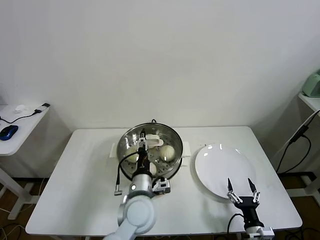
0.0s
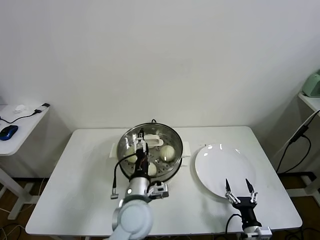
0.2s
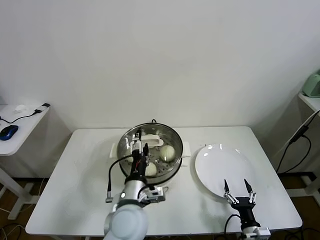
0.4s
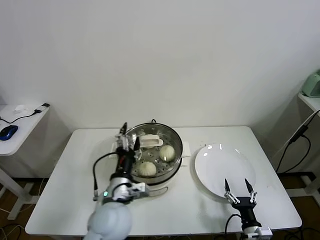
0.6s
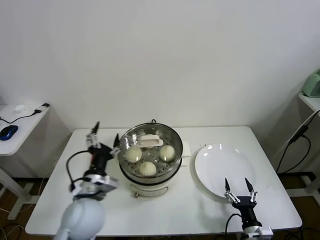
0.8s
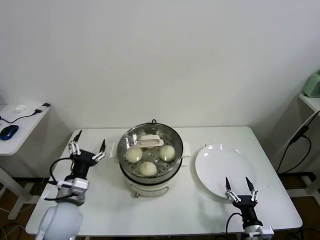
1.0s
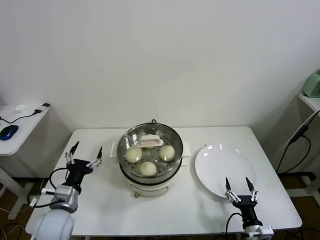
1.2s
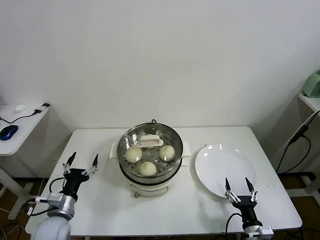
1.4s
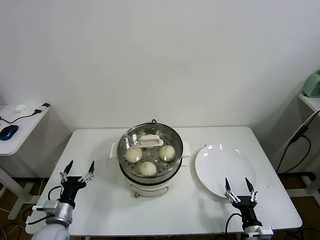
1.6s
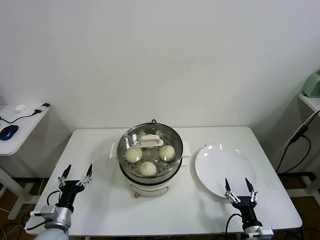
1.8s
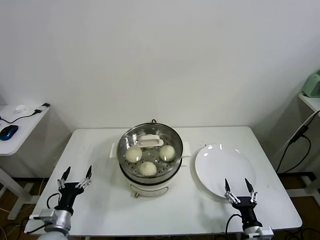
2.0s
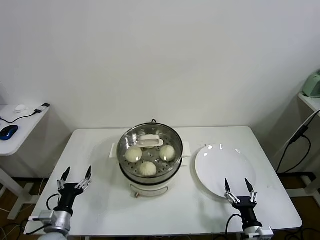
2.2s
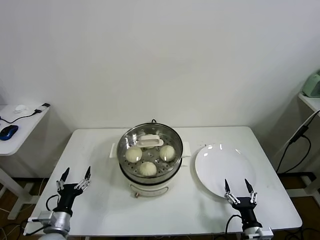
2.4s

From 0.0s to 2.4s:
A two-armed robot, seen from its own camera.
Task of the whole recording: take steamed baozi put them in steamer.
From 0.0s to 1.2s: The left gripper moves to the left, approximately 25 cm, and opens its fingers.
From 1.2s to 2.4s: The left gripper heads downward and to the left, covering approximately 15 cm.

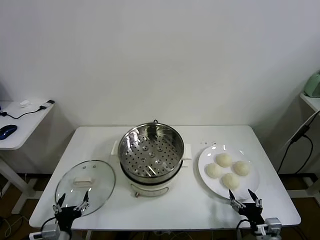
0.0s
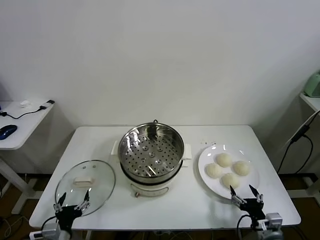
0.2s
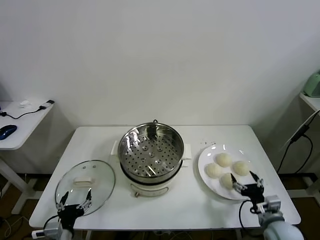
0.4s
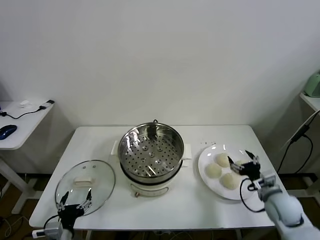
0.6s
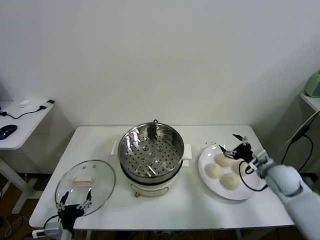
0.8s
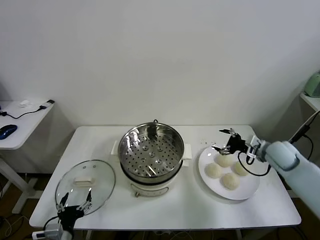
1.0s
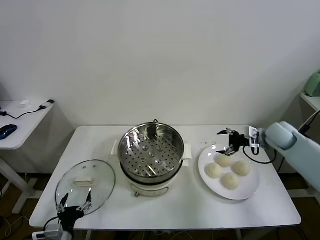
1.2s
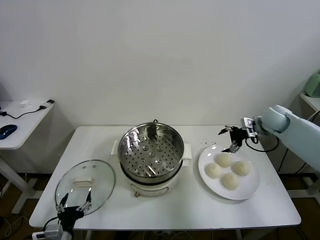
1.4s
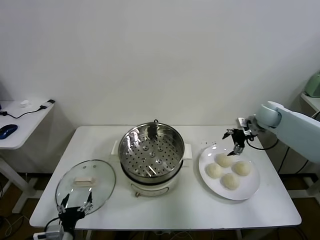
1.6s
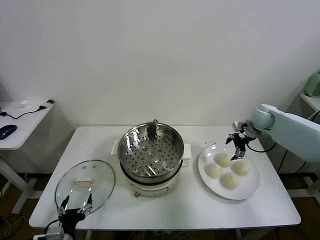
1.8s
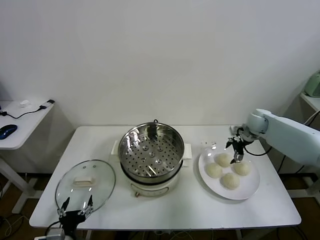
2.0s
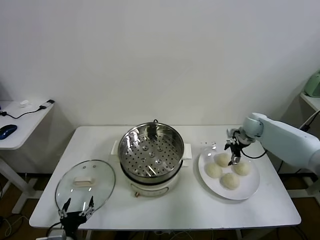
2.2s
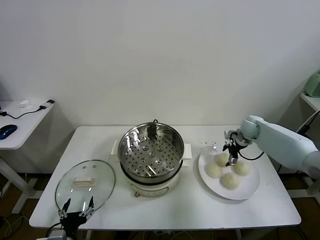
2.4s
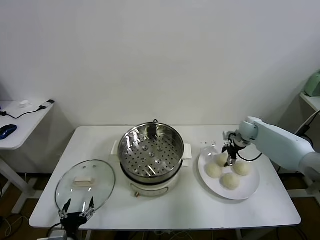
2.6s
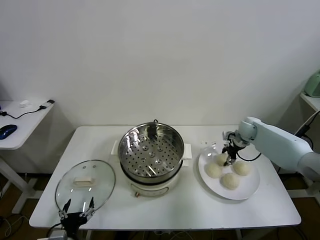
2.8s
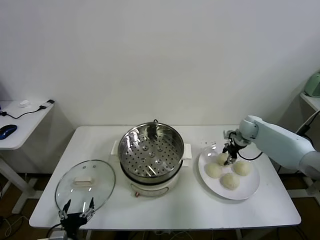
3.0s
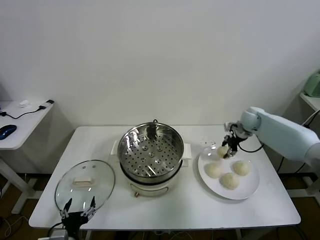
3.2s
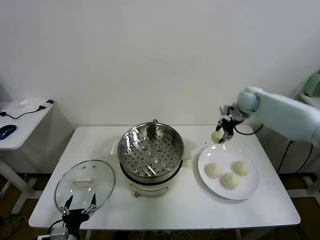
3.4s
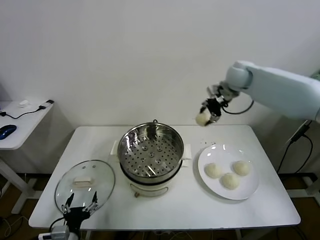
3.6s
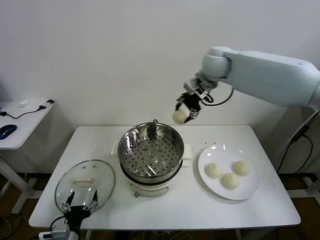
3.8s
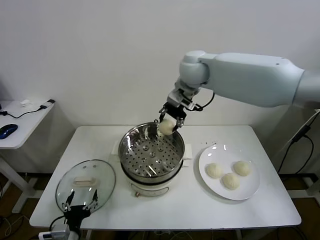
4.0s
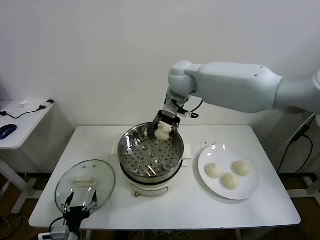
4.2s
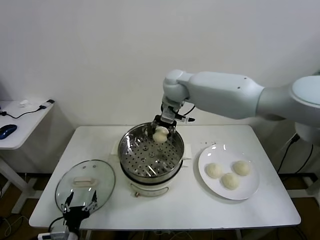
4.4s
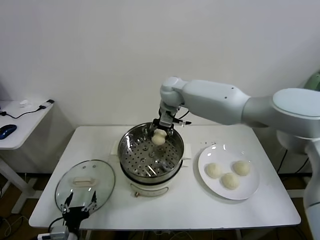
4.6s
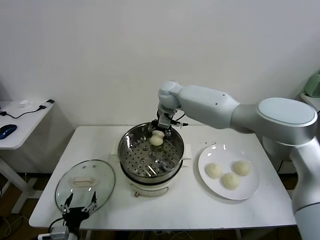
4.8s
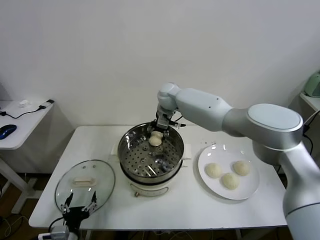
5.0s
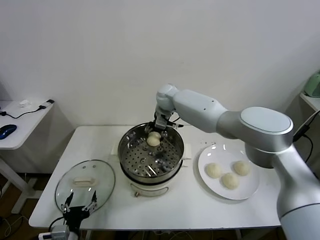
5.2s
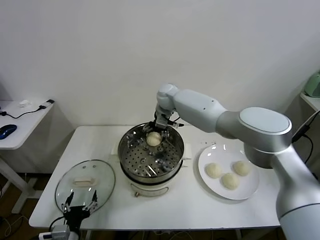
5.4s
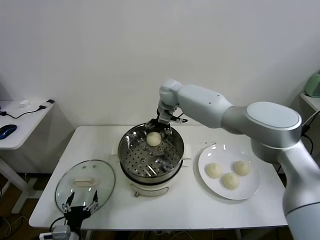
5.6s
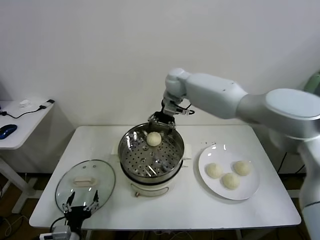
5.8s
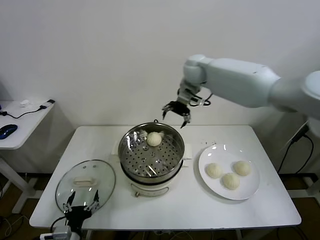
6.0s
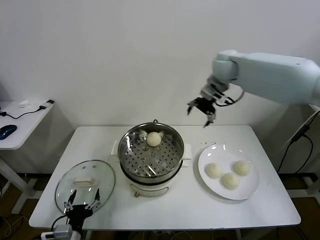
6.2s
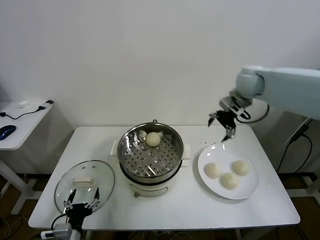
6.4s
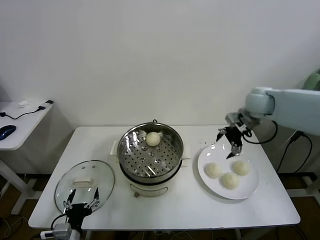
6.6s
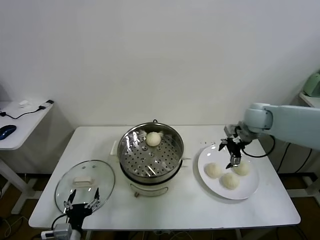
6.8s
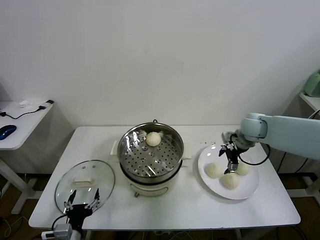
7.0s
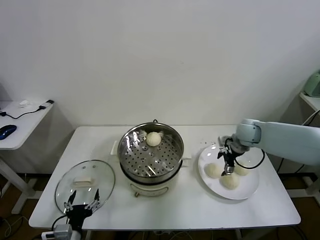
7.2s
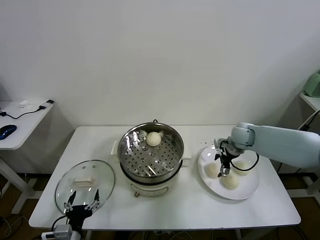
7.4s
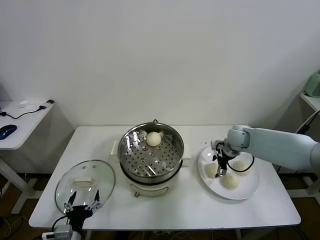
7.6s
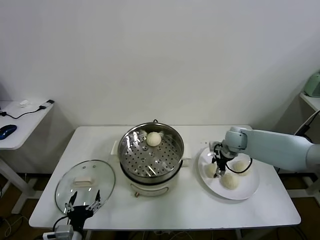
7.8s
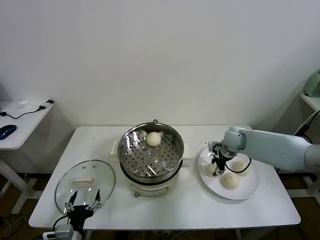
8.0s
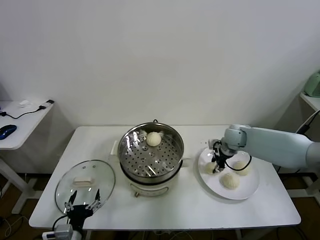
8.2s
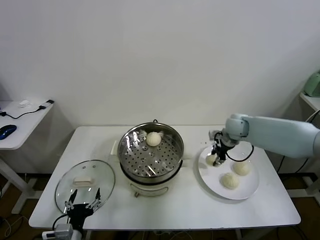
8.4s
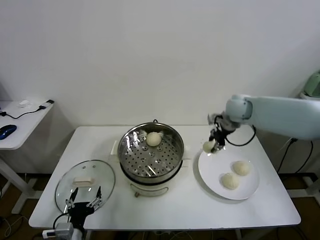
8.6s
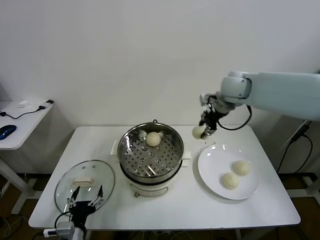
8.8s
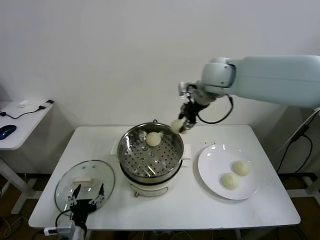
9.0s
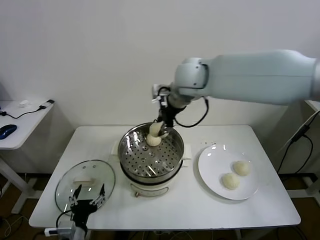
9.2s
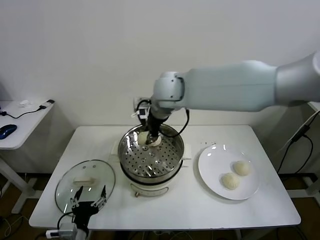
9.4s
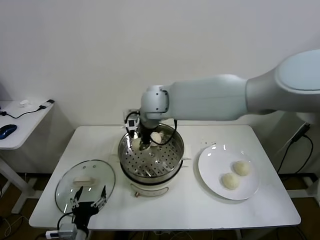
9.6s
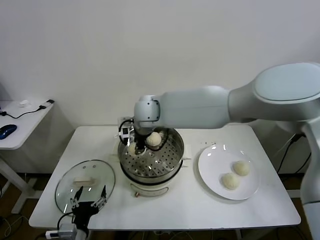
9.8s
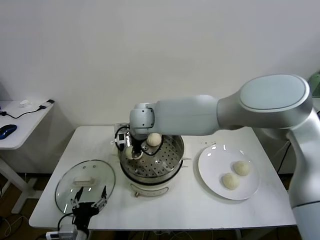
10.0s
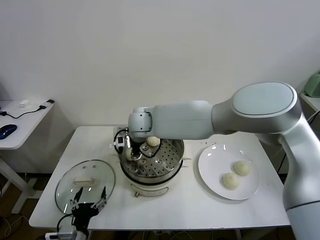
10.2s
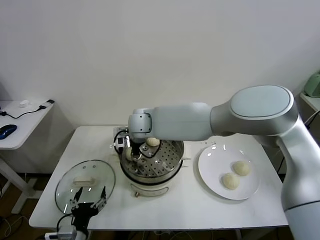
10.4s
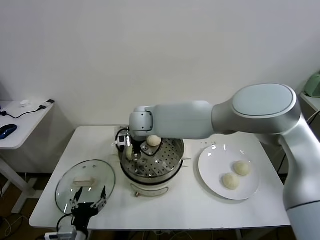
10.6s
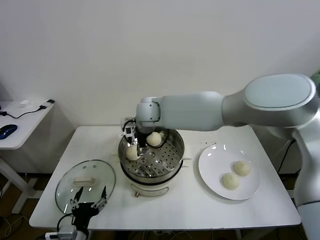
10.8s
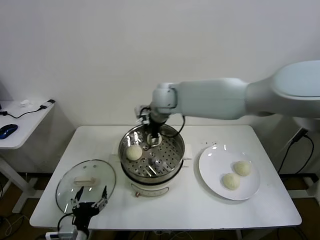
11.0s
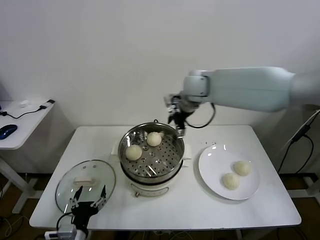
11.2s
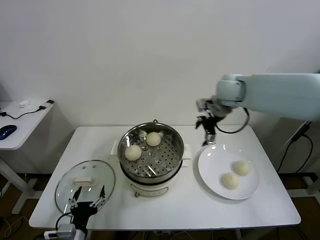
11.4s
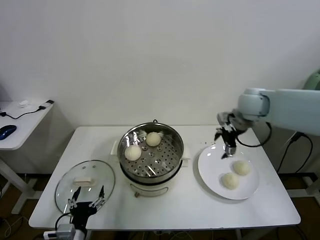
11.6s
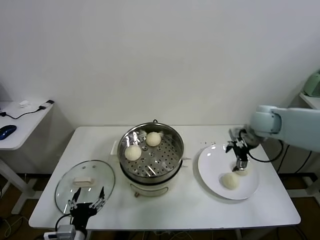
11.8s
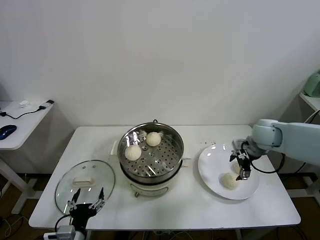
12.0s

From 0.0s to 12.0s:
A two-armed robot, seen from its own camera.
Task of the whole recording: take steamed baozi put them in steamer.
Step, from 0.0s to 2.8s: Grasp the baozi in the plate with right gripper.
Step, from 3.0s to 5.4s: Place the baozi on the steamer with right gripper.
Step, from 5.6s to 7.8s: Grasp the baozi in the plate with right gripper.
Step, from 8.2s to 10.6s: Place the baozi on the steamer with right gripper.
From 1.6s to 3.0s: The right gripper shifts approximately 5 cm downward, and closes.
From 3.0s to 4.4s: The right gripper is displaced to the left and upward by approximately 35 cm.
From 4.4s to 6.0s: The right gripper is displaced to the right and upward by some 15 cm, and opens.
From 6.0s to 7.6s: The right gripper goes approximately 30 cm downward and to the right.
From 7.6s to 9.0s: The right gripper travels upward and to the left by about 35 cm, and closes up.
From 9.0s to 10.4s: The right gripper goes roughly 25 cm to the left and downward.
From 10.4s to 12.0s: The right gripper is displaced to the right by about 40 cm, and opens up.

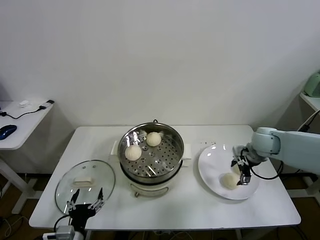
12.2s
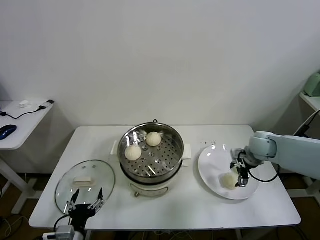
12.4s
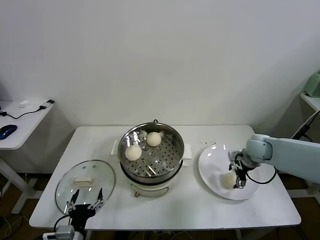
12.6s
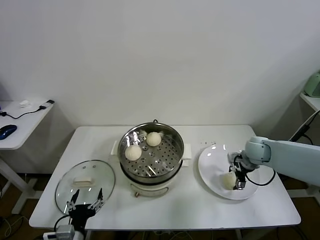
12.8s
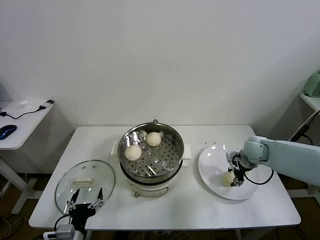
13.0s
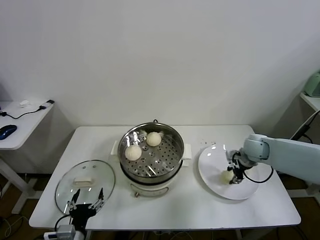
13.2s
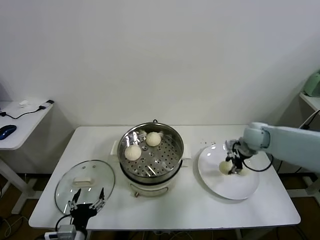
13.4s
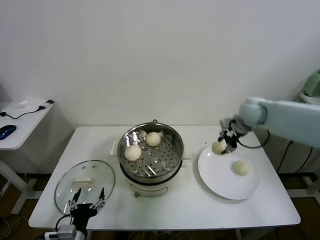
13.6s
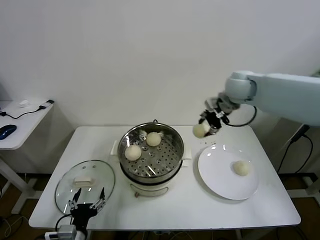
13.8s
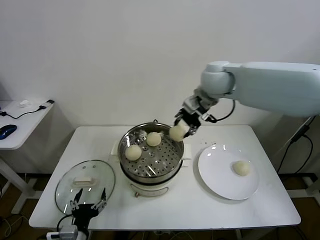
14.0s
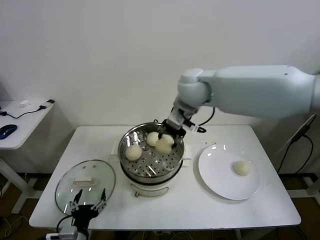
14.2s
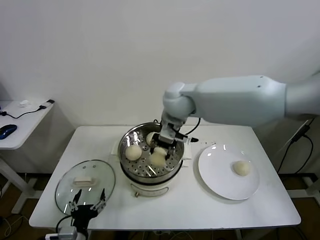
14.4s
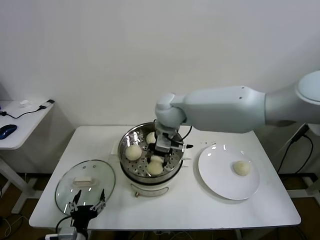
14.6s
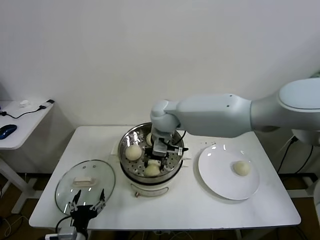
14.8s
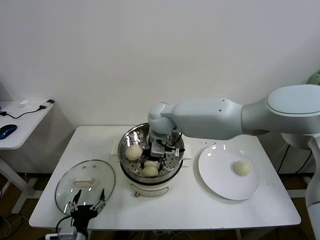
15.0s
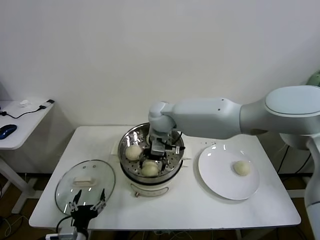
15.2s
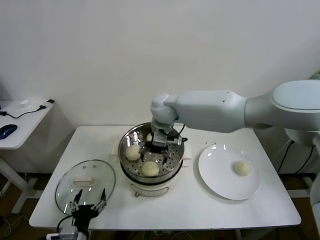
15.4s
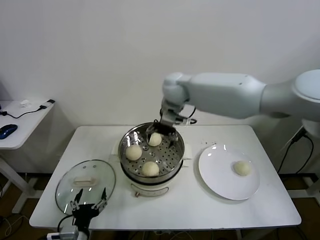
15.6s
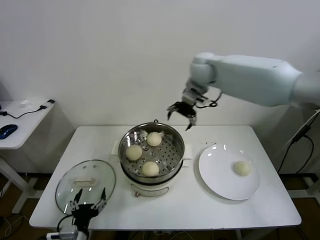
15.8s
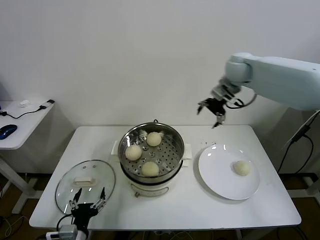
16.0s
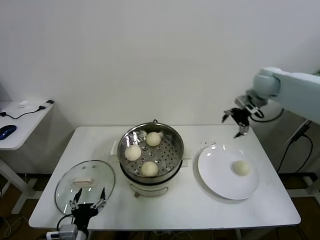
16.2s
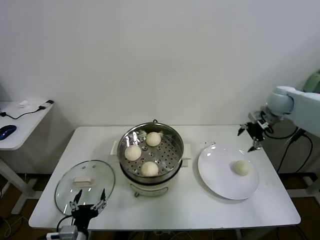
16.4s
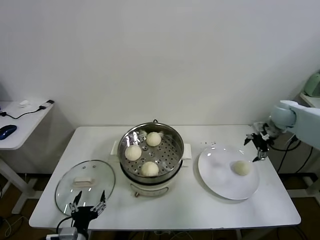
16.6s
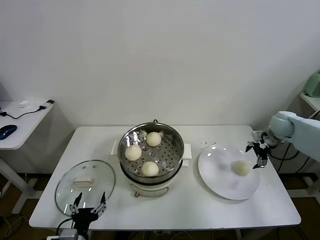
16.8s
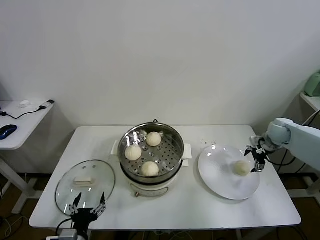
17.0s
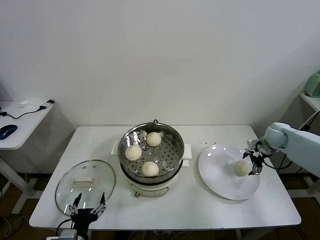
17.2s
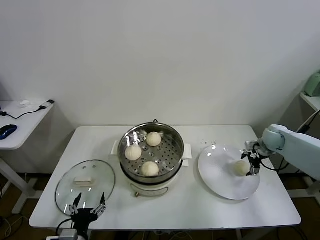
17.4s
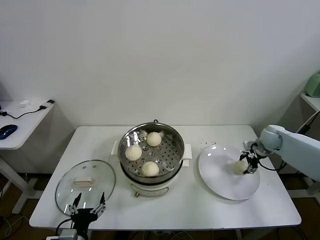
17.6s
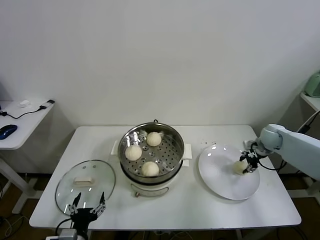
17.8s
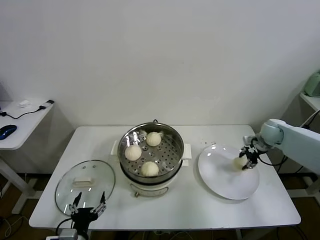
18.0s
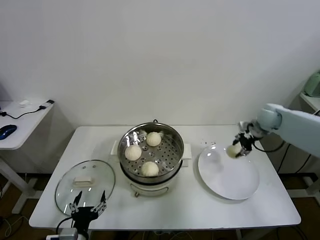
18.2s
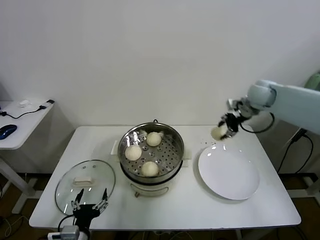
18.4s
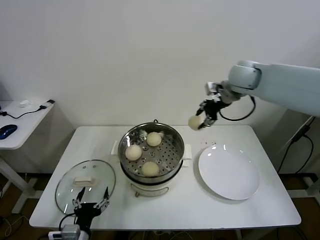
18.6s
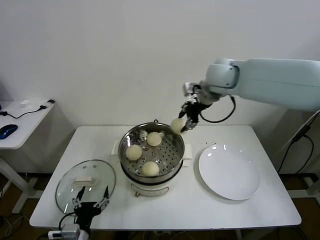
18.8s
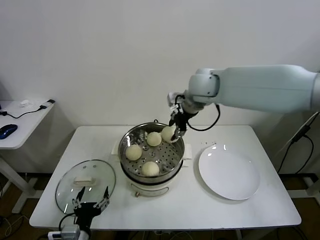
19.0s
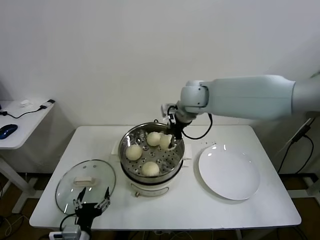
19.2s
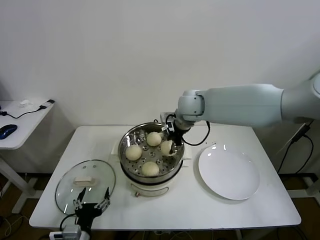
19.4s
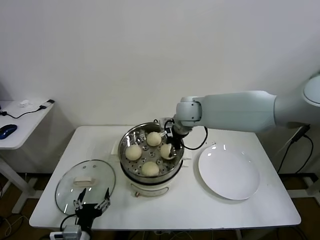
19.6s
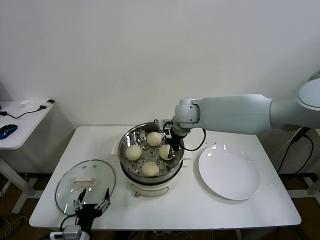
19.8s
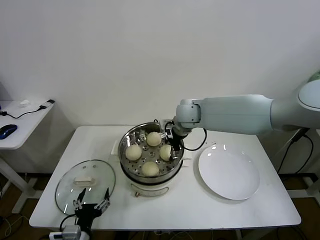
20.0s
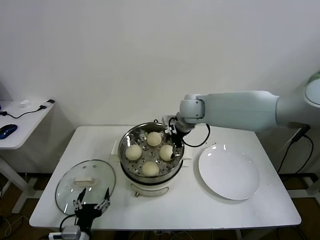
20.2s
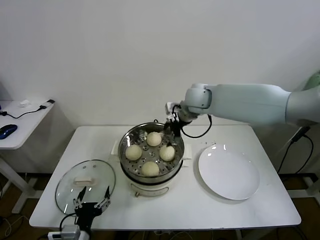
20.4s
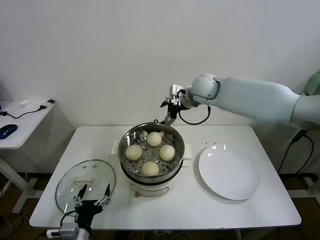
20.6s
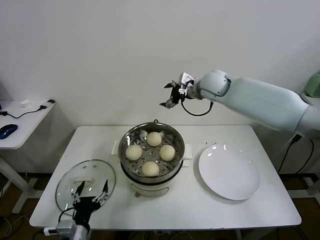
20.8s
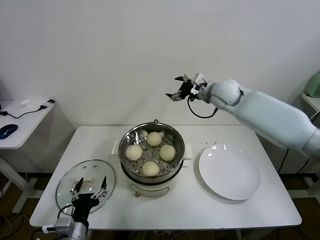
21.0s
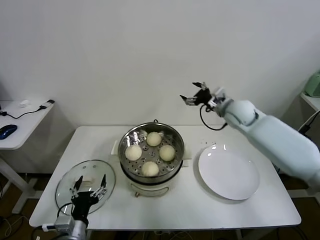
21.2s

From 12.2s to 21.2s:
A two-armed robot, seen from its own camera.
Task of the whole recording: take steamed baozi put them in steamer.
Step, from 13.2s to 15.2s: Place the baozi on the steamer with right gripper.
Step, from 15.4s to 17.6s: Grasp the baozi in the plate with right gripper.
Step, from 17.8s to 20.0s: Place the baozi on the steamer with right gripper.
From 12.2s to 13.8s: The right gripper travels upward and to the left by some 25 cm, and closes.
From 13.8s to 15.2s: The right gripper travels to the left and downward by roughly 25 cm, and opens up.
From 15.2s to 16.6s: The right gripper shifts approximately 40 cm to the right.
From 16.6s to 18.2s: The right gripper reaches approximately 10 cm downward, then returns, and closes its fingers.
From 18.2s to 19.8s: The right gripper is displaced to the left by approximately 30 cm.
From 19.8s to 21.2s: The right gripper shifts roughly 20 cm to the right, and opens.
